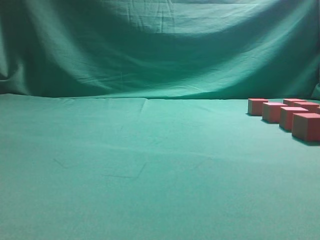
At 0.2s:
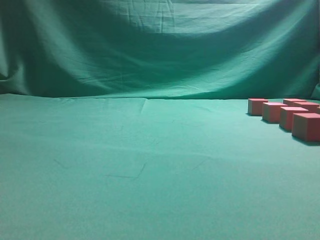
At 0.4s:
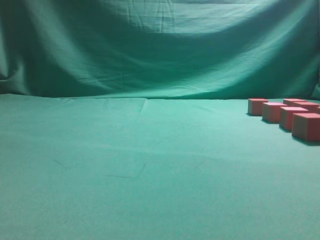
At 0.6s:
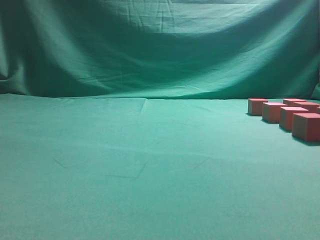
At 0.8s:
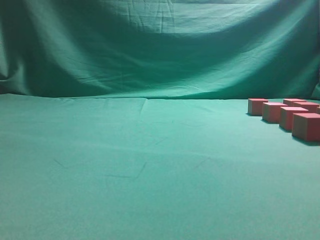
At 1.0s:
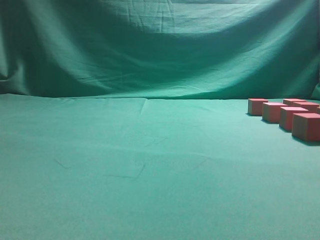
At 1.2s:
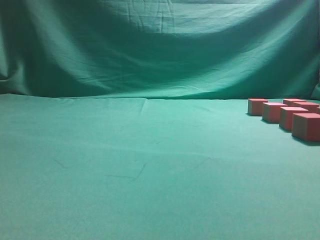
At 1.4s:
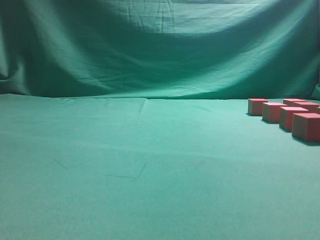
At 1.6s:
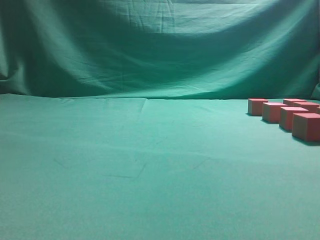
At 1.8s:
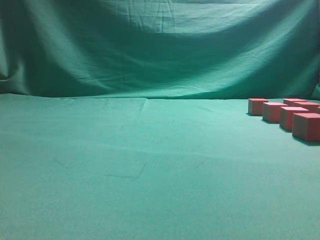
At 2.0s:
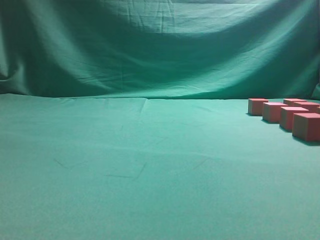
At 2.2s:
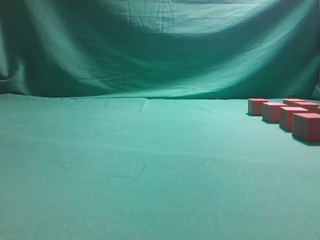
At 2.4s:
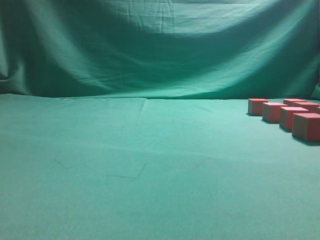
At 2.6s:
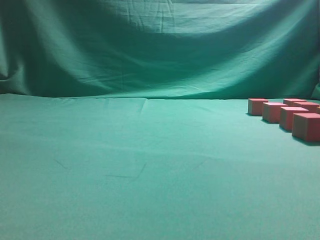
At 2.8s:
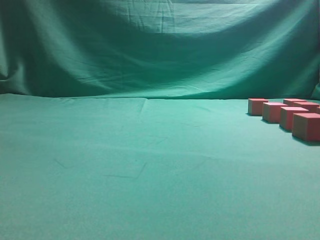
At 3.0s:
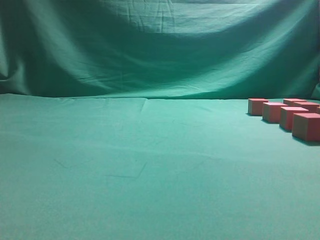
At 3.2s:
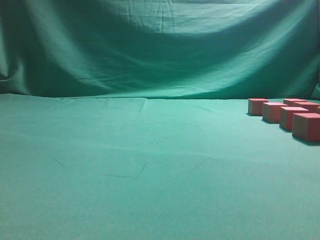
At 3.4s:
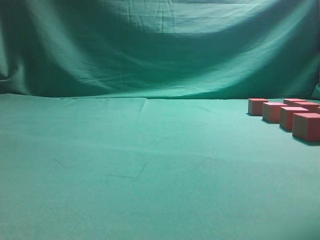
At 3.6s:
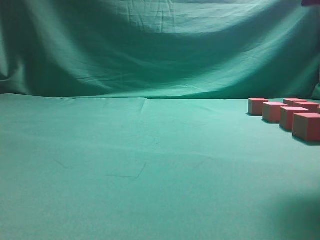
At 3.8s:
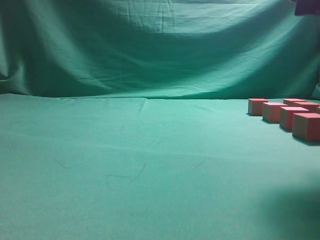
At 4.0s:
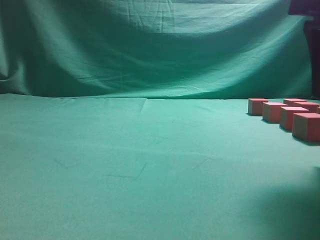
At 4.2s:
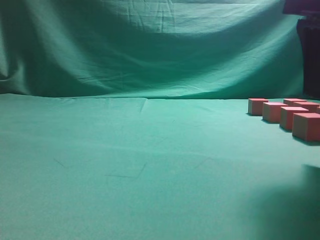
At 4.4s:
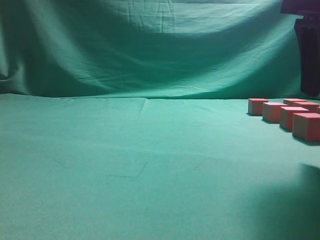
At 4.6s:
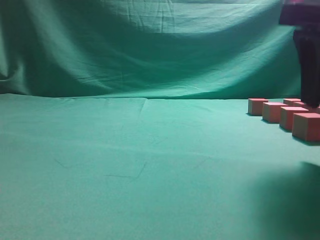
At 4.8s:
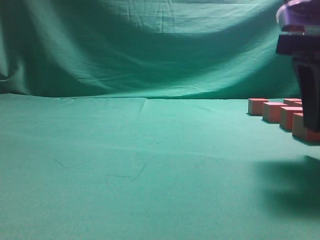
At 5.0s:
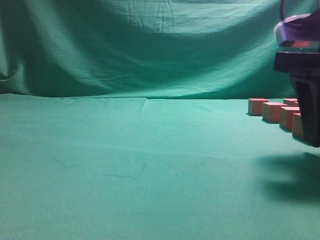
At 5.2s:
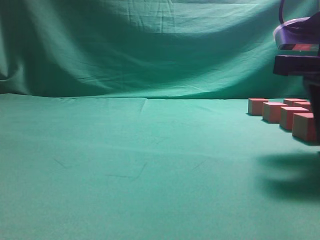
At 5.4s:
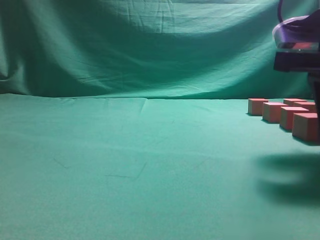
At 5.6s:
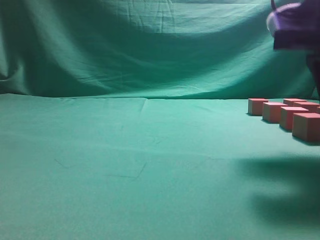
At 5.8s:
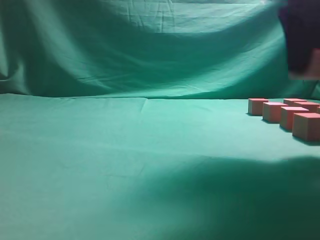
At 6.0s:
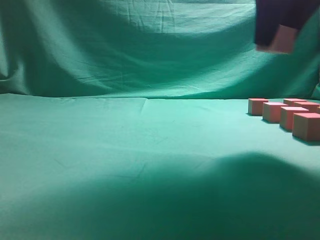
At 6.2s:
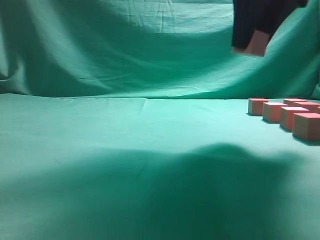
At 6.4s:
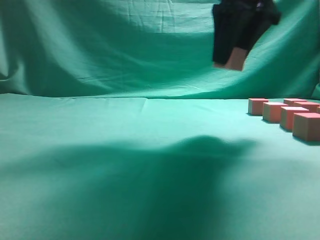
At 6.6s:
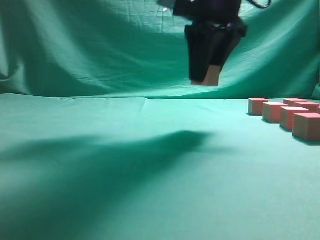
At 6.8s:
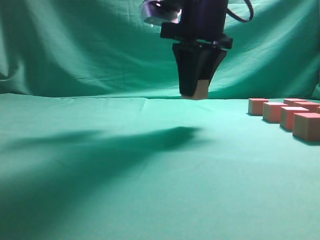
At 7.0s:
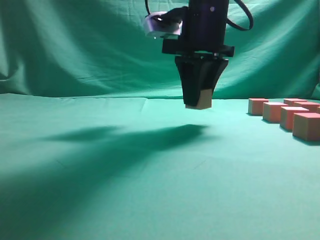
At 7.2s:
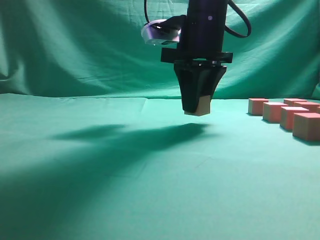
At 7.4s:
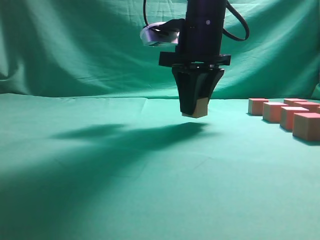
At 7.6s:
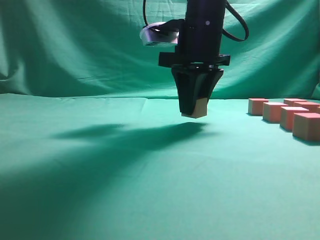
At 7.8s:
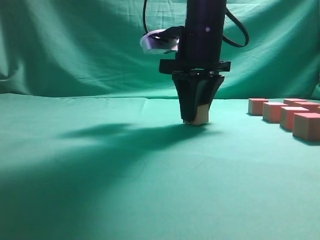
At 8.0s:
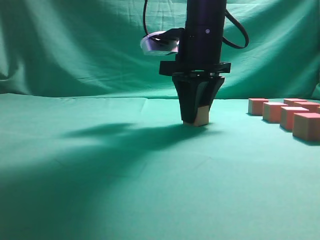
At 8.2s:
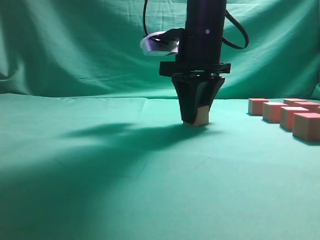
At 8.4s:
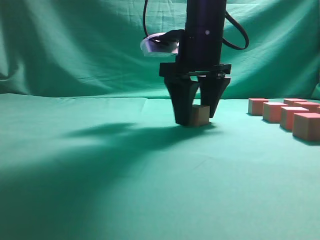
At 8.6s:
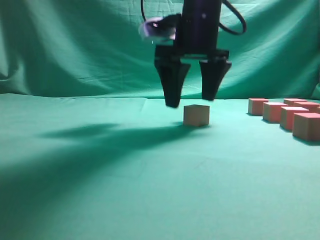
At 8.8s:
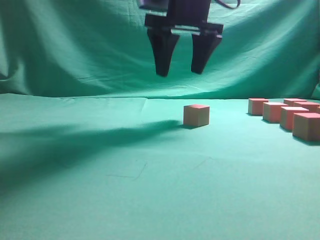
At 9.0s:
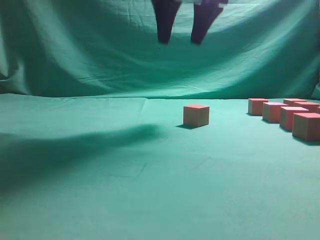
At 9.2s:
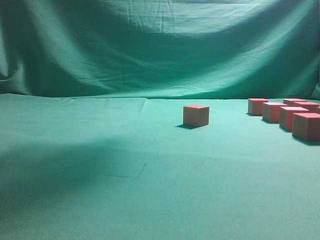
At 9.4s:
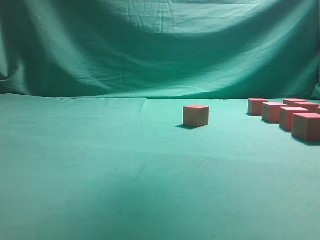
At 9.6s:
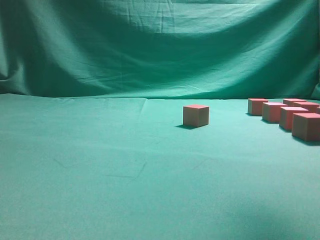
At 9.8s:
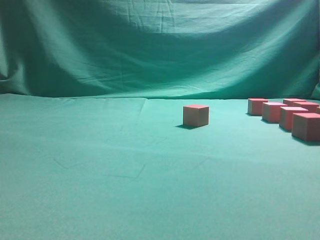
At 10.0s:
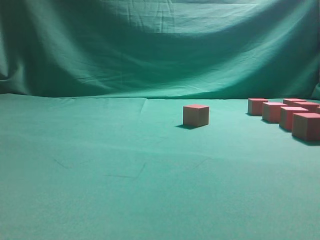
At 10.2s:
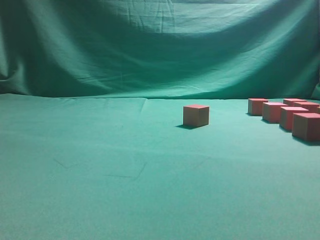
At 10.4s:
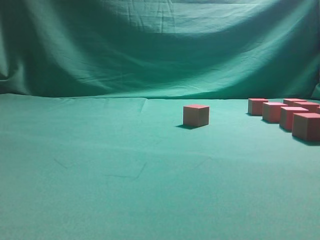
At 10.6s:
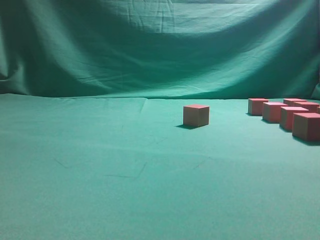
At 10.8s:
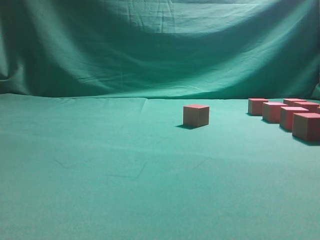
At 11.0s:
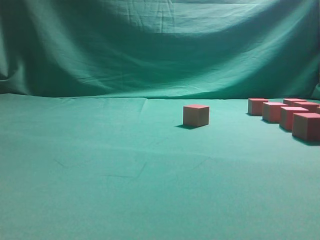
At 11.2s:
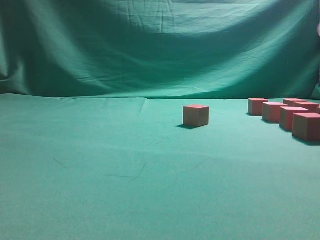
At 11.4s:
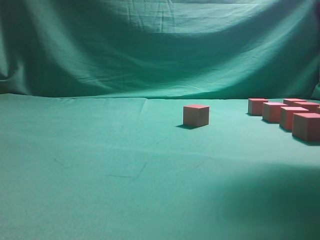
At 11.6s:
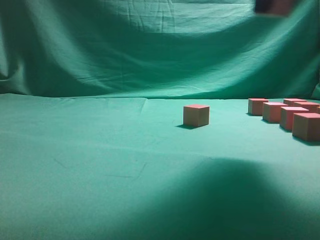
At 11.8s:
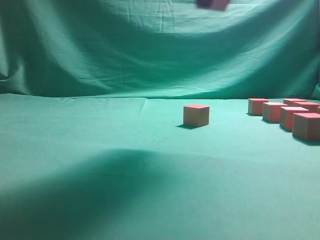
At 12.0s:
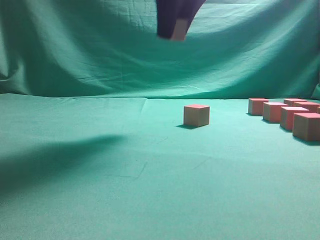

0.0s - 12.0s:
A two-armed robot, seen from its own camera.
Task of the whole recording: pick up the multiple cubes in two columns one by one and place them in another position on the table.
Step, 0.0s - 5.6s: Pick up the block on the table.
Step, 5.8s - 8.8s: Place the block at the correct position to assemble the letter S.
Step, 9.0s - 11.0s: Pick up the block on the table.
3.0s - 4.4s: The right gripper travels forward by about 10 cm, and opens up.
4.4s - 6.0s: The right gripper moves forward and upward, roughly 10 cm, and closes.
6.0s - 7.6s: The right gripper moves to the left, forward and downward, about 15 cm.
7.6s - 9.0s: The right gripper heads upward, covering about 10 cm, and opens up.
9.0s - 10.4s: The right gripper heads to the right, backward and downward, covering some 30 cm.
10.4s - 12.0s: The right gripper moves to the left, forward and upward, some 25 cm, and closes its fingers.

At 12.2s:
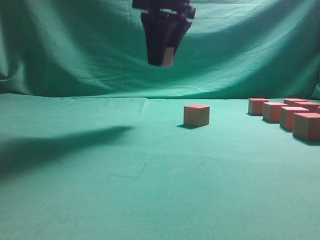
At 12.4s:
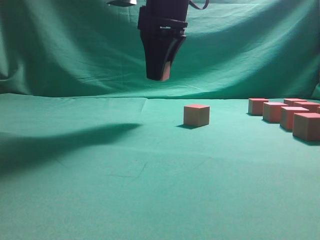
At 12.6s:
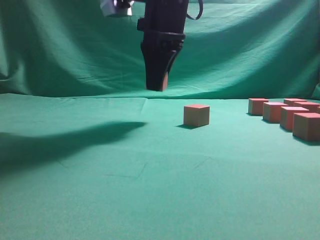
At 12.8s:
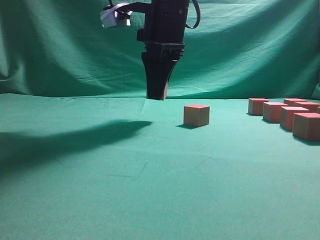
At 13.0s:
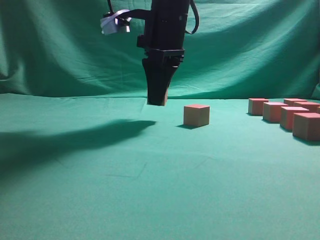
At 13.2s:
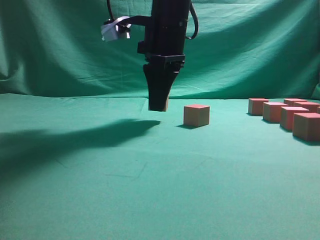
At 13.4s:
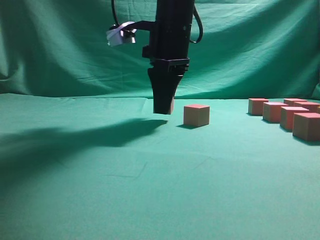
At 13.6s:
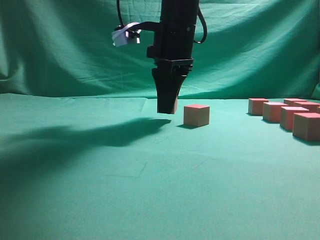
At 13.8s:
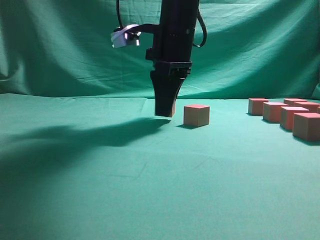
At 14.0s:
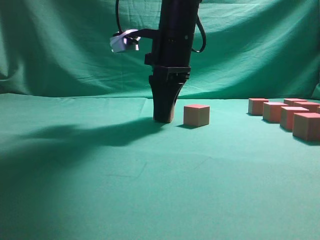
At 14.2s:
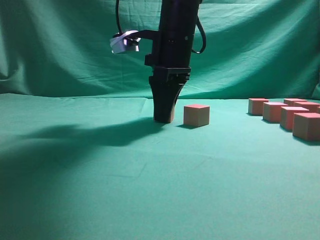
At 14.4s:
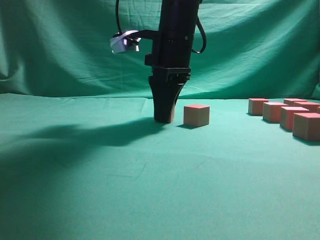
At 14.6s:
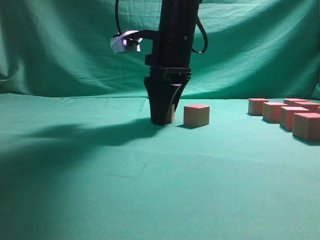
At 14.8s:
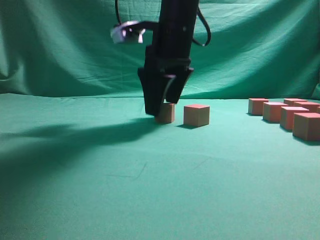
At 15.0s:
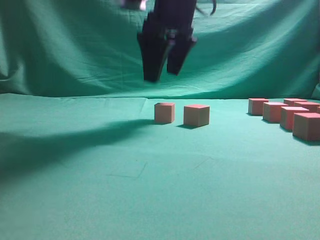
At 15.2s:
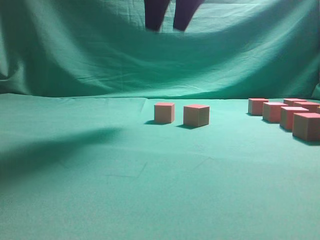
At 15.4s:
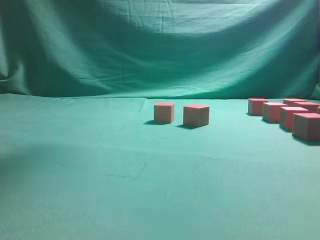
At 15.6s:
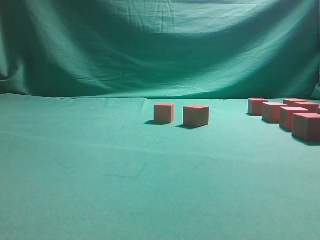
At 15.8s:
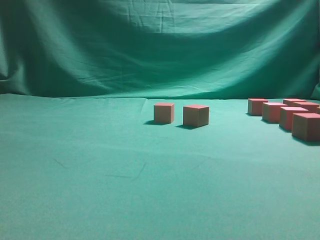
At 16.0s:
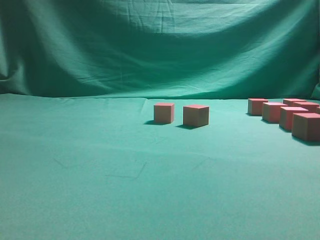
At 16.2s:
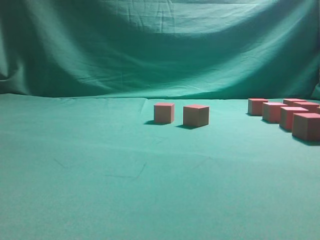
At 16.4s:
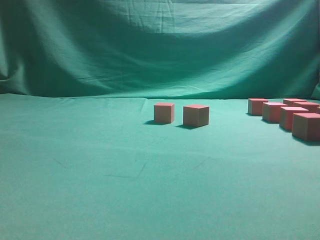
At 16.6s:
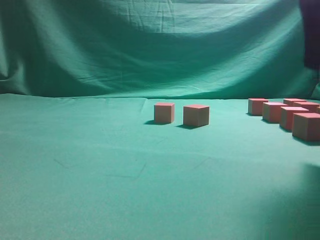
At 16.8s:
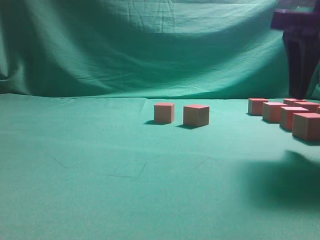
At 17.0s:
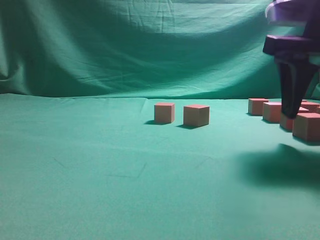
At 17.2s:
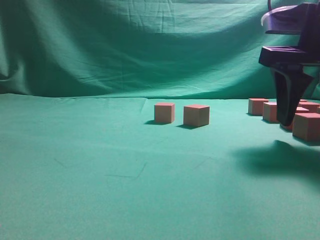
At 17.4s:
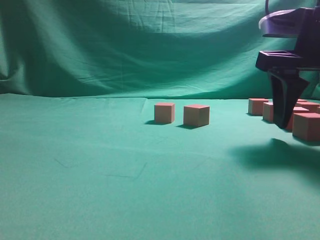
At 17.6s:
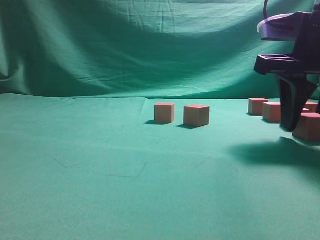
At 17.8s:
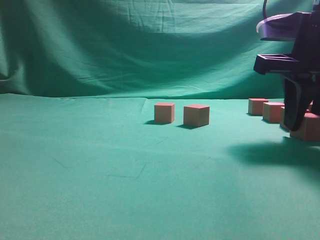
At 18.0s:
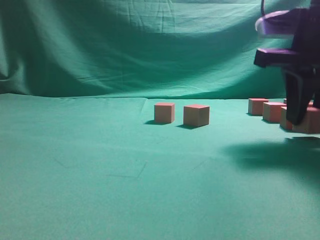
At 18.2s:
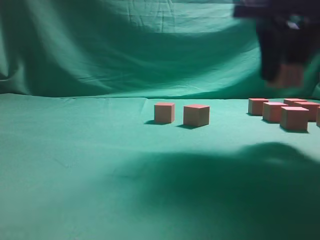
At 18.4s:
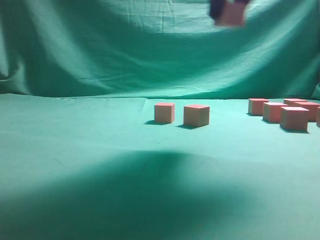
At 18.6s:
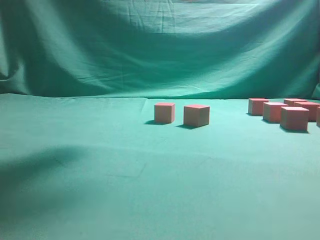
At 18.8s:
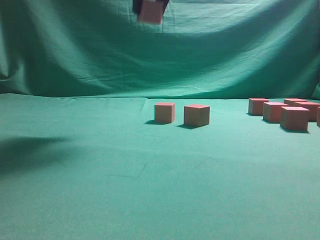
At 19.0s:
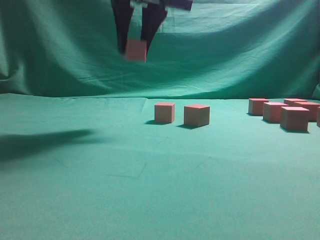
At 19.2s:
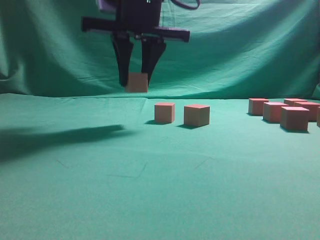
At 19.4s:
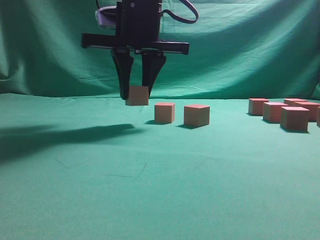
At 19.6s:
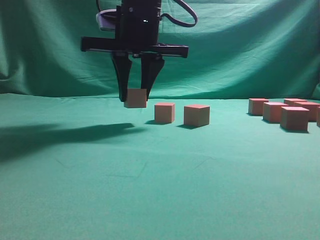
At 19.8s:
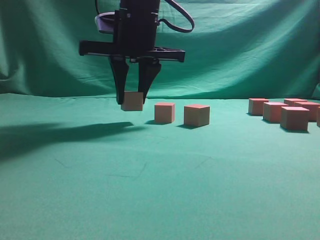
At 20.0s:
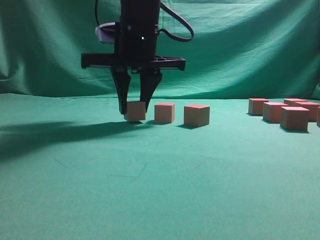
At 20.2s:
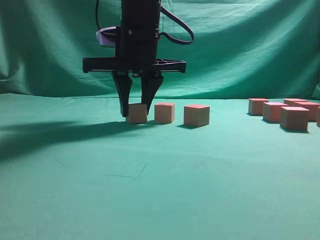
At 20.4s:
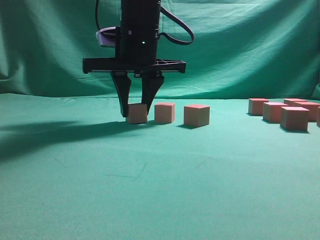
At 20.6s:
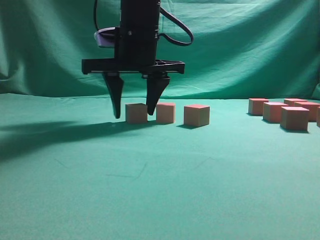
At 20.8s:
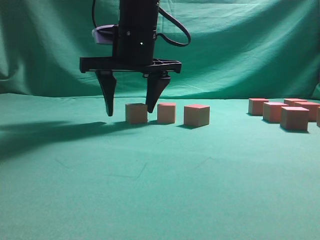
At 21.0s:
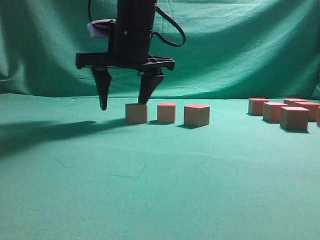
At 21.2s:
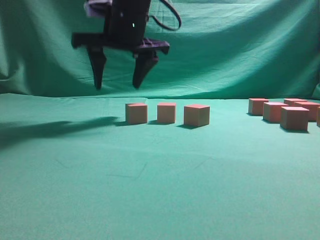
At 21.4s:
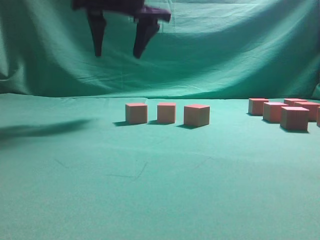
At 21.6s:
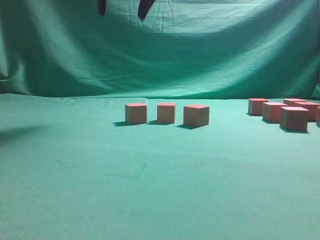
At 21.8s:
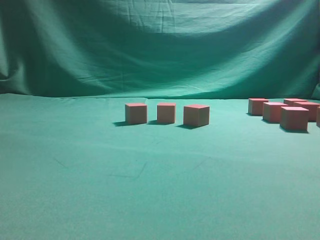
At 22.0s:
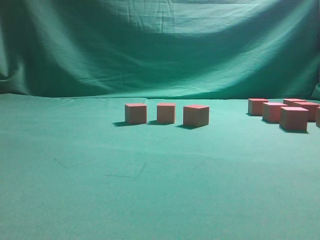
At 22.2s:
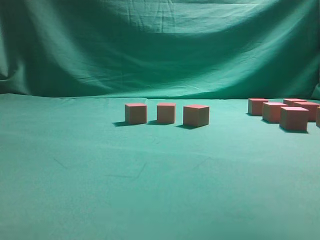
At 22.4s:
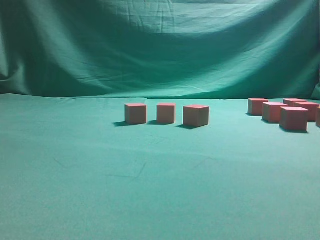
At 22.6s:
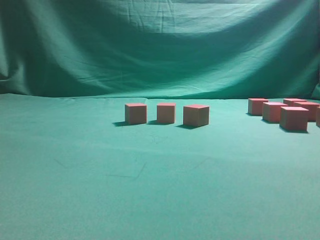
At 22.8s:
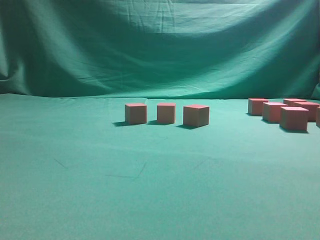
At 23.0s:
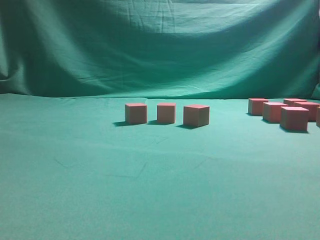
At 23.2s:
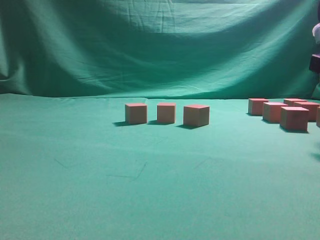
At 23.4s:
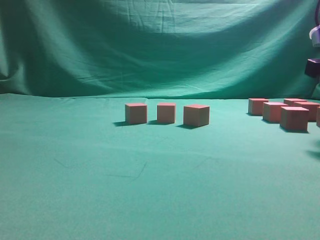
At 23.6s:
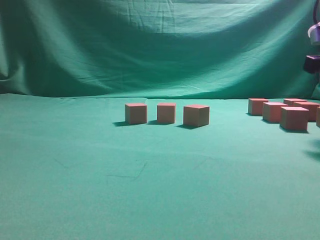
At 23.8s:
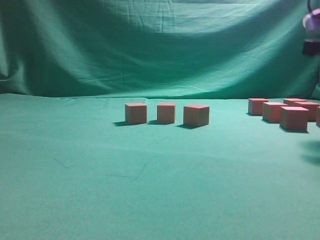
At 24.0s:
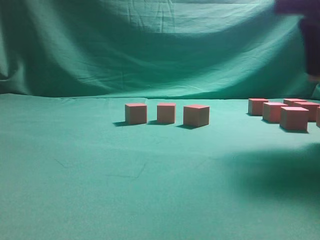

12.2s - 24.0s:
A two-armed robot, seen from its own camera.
Task of the whole recording: pick up the multiple cubes in two columns one by one and place them in another position on the table.
Step, 12.2s - 15.0s: Place the block at the correct position to assemble the letter S.
Step, 15.2s - 18.0s: Pick up the block on the table.
Step, 18.2s - 21.2s: Place the block at the correct position to assemble the letter S.
Step, 21.6s - 23.8s: Pick up the block on the table.
12.2s - 13.6s: The right gripper heads downward, covering approximately 10 cm.
13.6s - 15.2s: The right gripper goes approximately 10 cm upward, and opens.
15.2s - 16.6s: The right gripper goes roughly 20 cm to the right and backward, and travels upward and back again, some 15 cm each way.
16.6s - 18.2s: The right gripper is displaced forward by about 5 cm, moves some 10 cm downward and comes back, and closes.
18.2s - 19.6s: The right gripper travels to the left and forward by some 20 cm.
19.6s - 21.0s: The right gripper opens up.
21.0s - 22.6s: The right gripper travels to the right and backward by some 35 cm.
22.6s - 24.0s: The right gripper heads downward, covering some 5 cm, and closes up.
